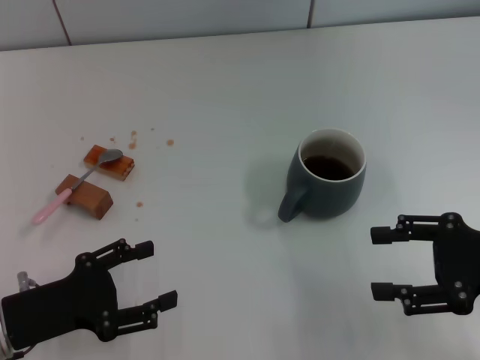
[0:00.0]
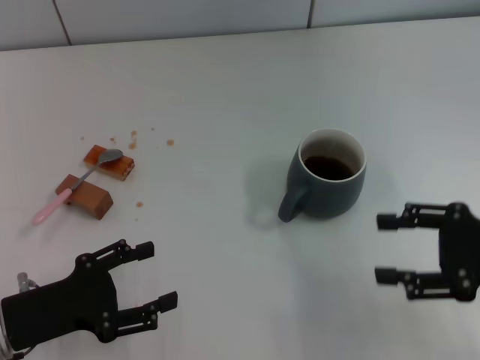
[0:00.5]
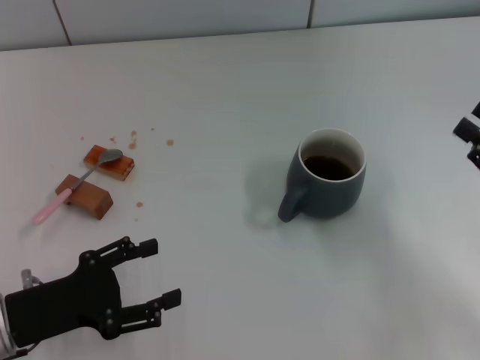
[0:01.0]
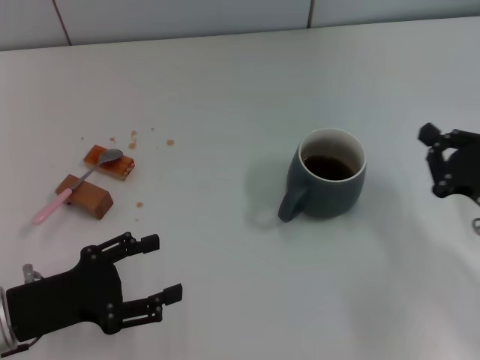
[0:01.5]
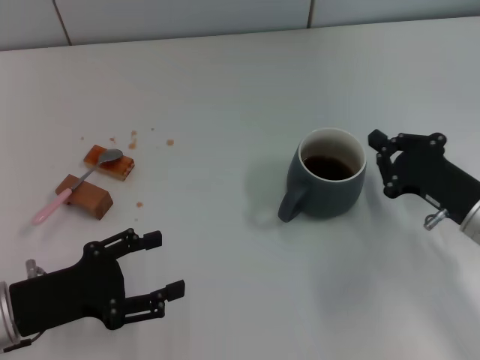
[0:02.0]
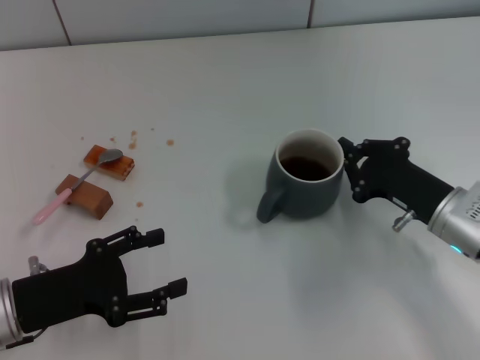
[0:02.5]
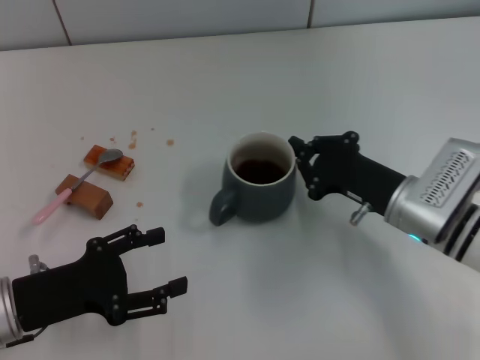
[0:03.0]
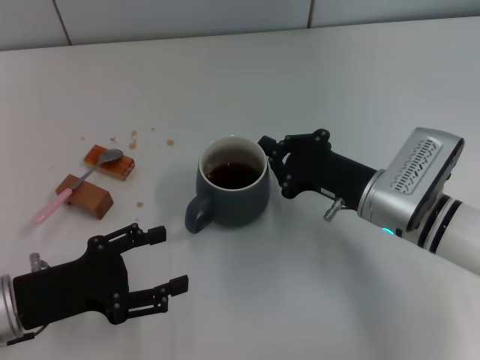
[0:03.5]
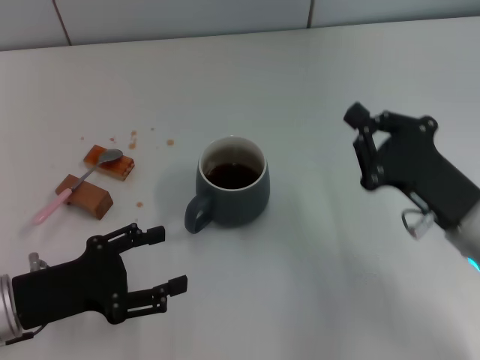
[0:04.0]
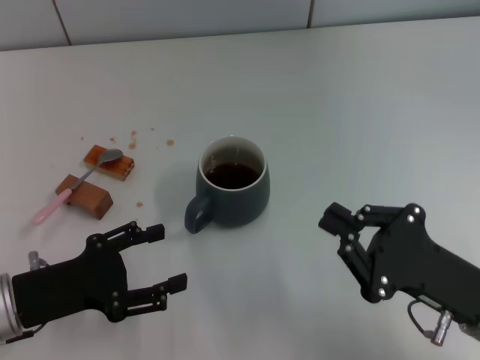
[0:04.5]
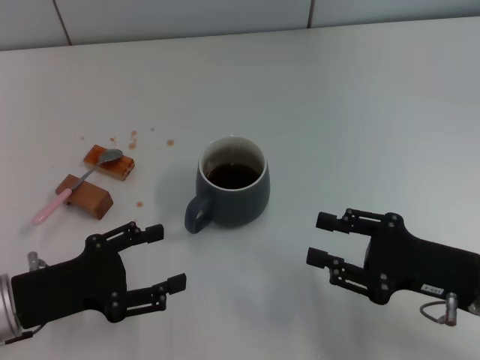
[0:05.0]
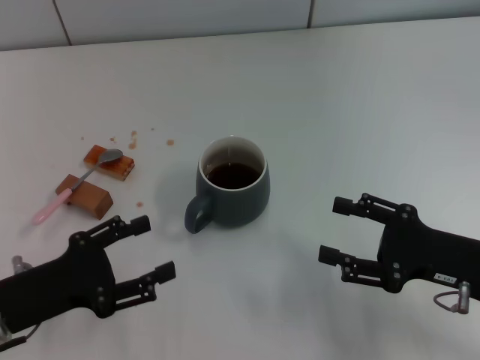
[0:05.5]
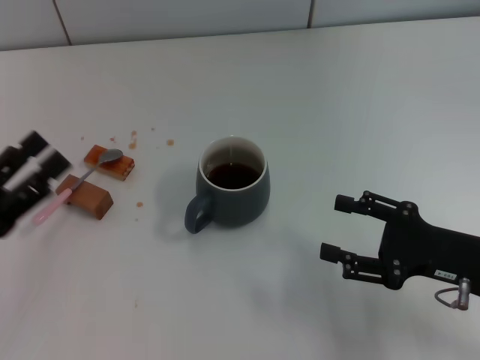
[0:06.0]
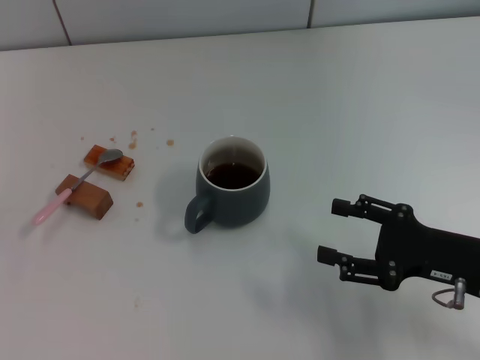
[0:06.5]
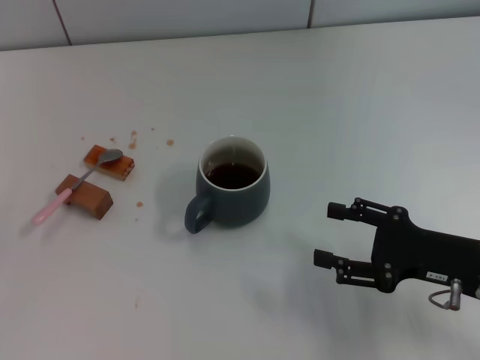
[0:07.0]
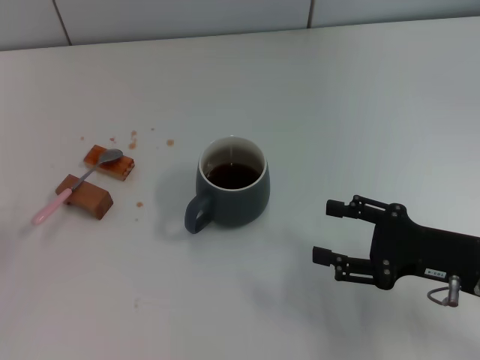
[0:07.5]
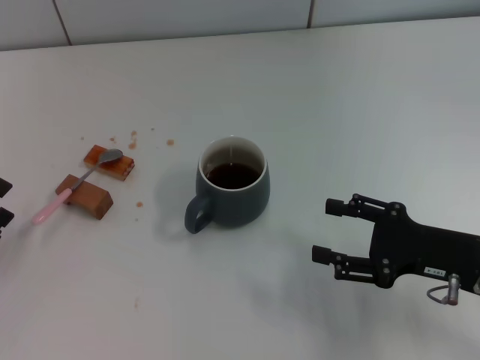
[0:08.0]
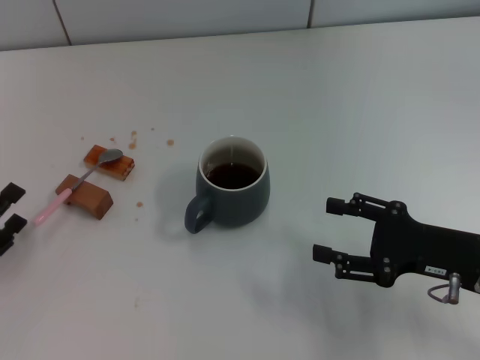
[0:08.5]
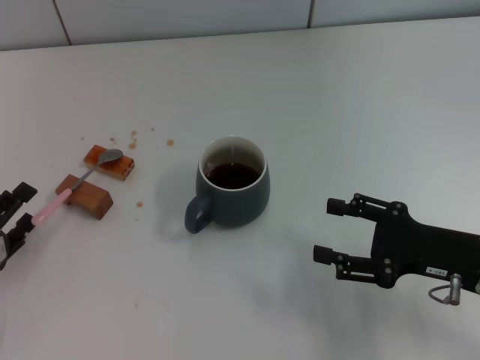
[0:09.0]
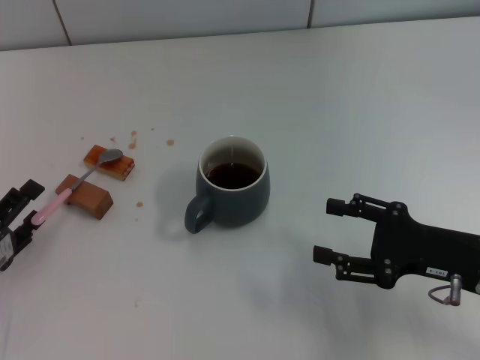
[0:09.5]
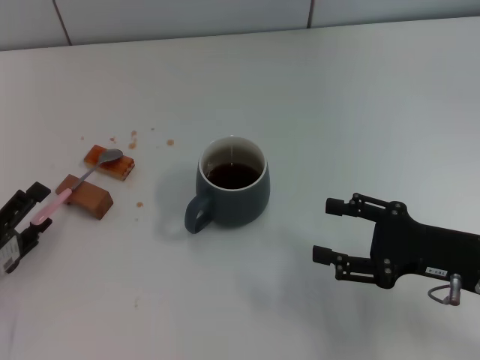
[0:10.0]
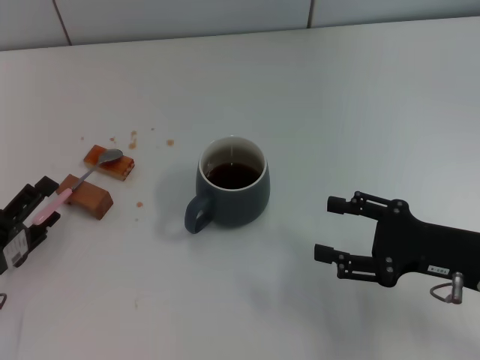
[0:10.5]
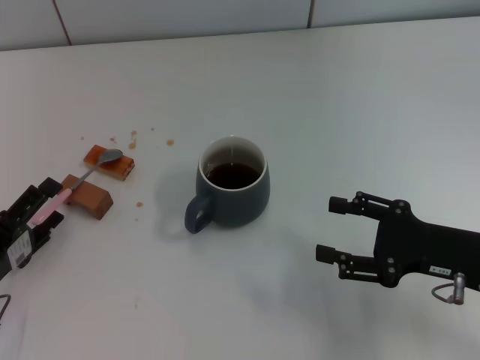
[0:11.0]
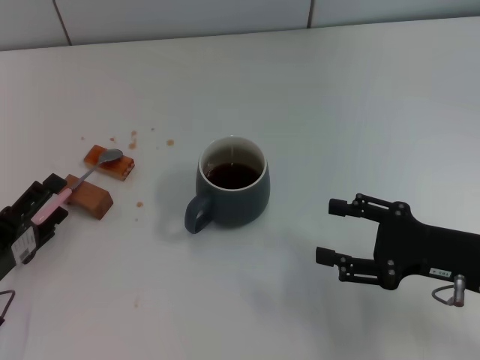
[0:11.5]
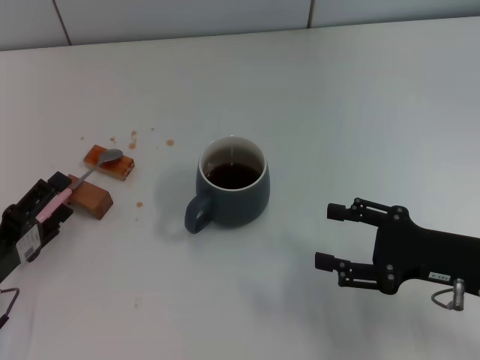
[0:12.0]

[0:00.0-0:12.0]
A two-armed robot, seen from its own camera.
Task of the whole recording: Move the grey cup to the center, lift the pink spoon, stir it three times in the cup, and put the spoon into the cup.
Step, 0:00.0 to 0:03.5: Move the cup with coffee to the center of view with the right gripper.
0:00.0 to 0:02.0: The right gripper heads downward, covering some 10 cm, and closes up.
0:04.0 to 0:06.0: The left gripper moves roughly 5 cm, while the right gripper opens.
0:06.0 to 0:08.0: The left gripper is displaced downward by some 5 cm.
0:08.0 to 0:12.0: There are only small adjustments of the grippers.

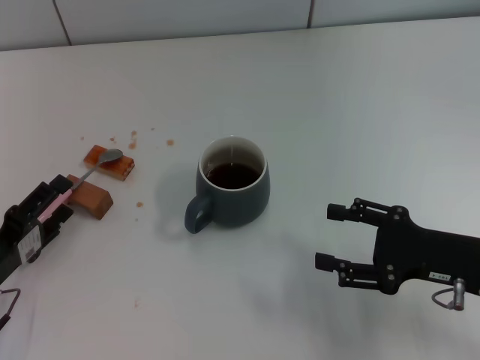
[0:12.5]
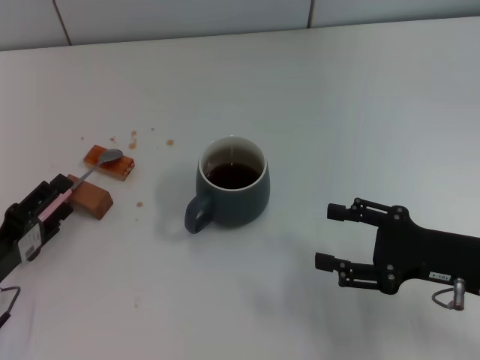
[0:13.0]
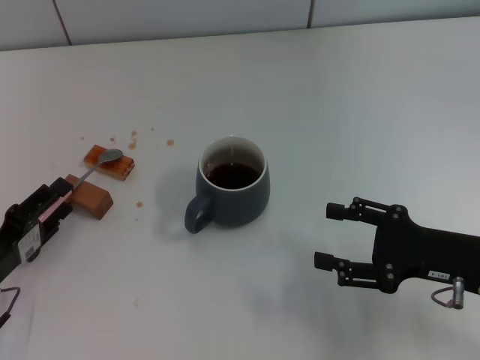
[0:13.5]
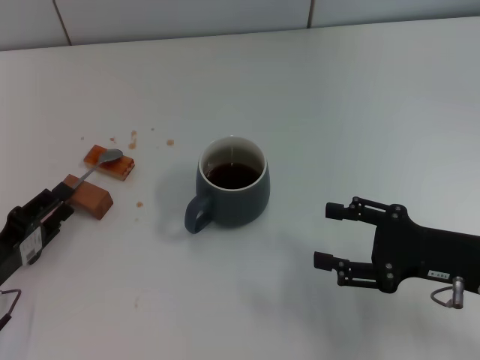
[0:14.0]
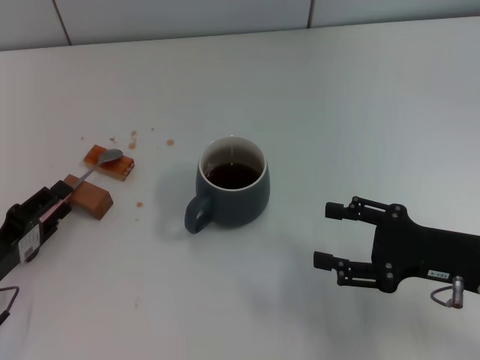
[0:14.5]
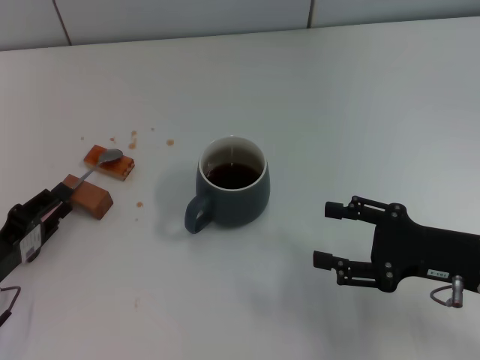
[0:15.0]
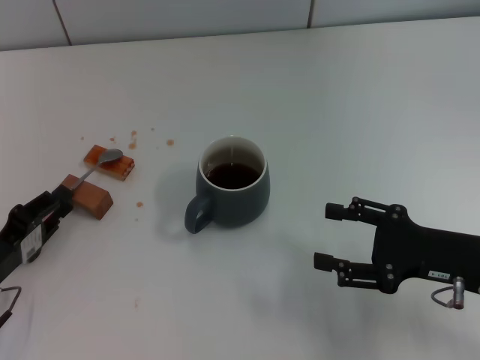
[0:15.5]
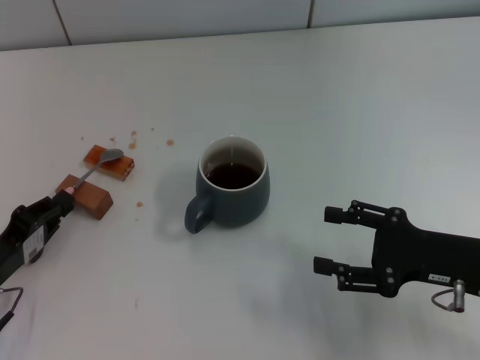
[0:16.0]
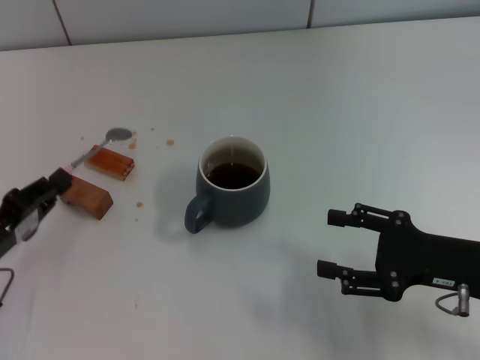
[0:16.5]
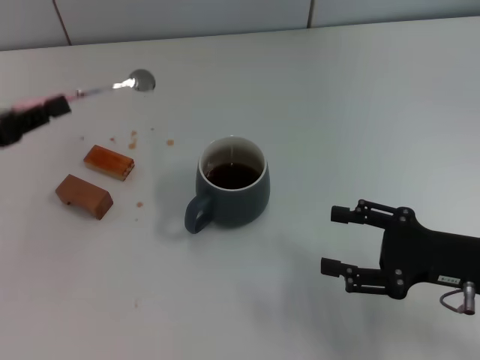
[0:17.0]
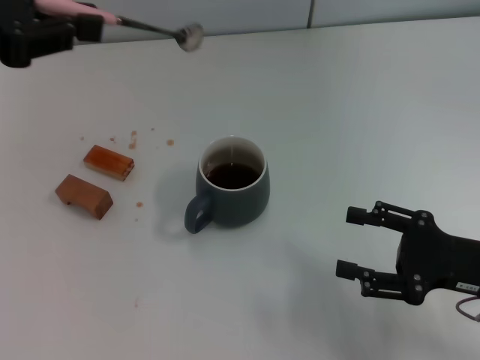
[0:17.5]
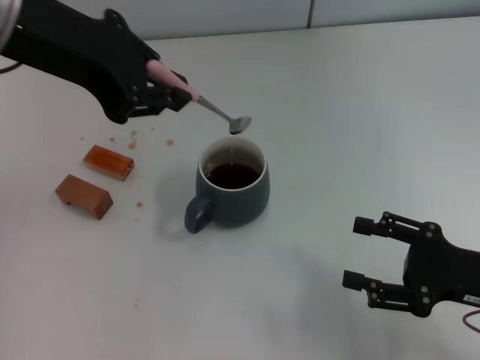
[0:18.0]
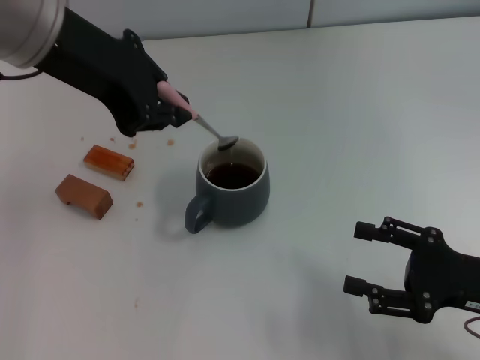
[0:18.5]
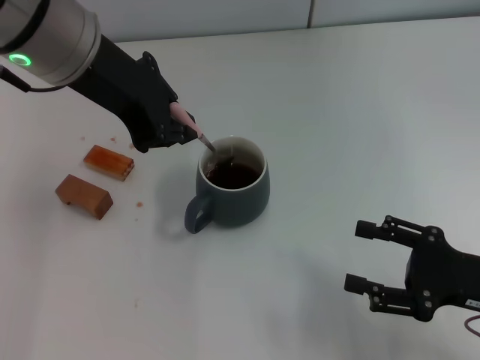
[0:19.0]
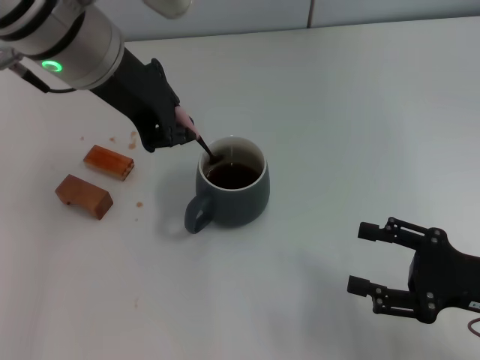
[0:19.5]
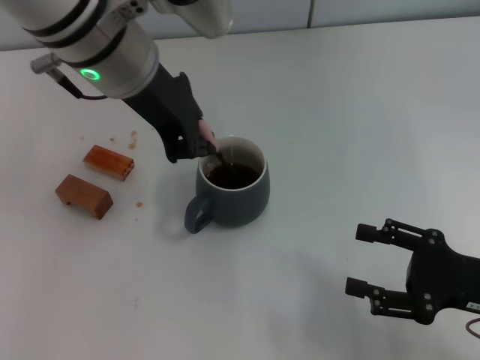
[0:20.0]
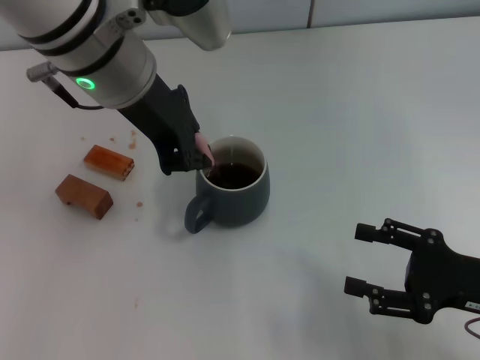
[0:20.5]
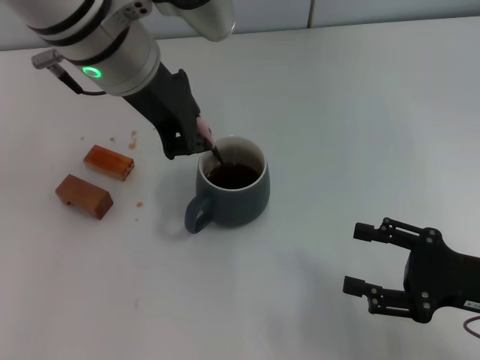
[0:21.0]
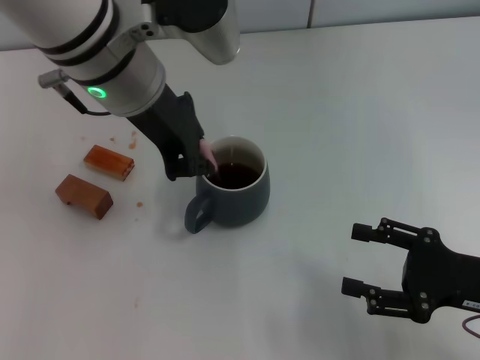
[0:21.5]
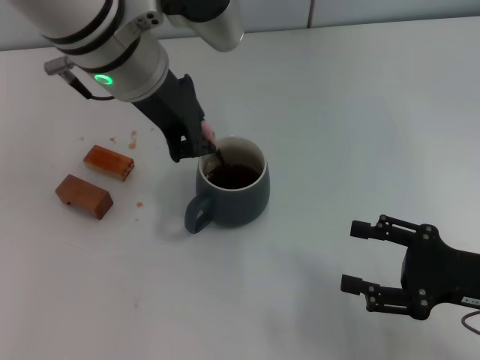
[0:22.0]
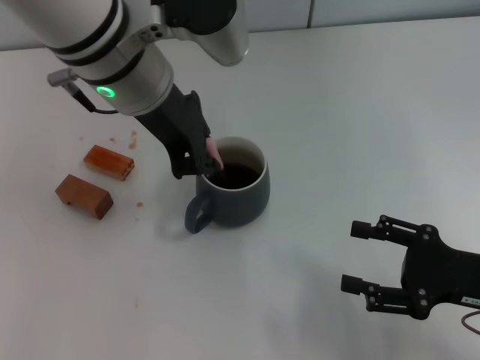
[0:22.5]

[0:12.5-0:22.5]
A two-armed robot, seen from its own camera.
Task of the whole recording: Move the grey cup to the center, lift the pink spoon, stir it three times in the cup, and put the spoon into the cup.
Step, 0:12.5 to 0:16.0: Pick up the spoon with the left gripper.
0:12.5 to 0:14.5: The left gripper closes.
0:14.5 to 0:16.5: The left gripper closes.
0:16.5 to 0:18.5: The left gripper shifts approximately 35 cm upward, to the right and forward.
0:18.5 to 0:20.5: The left gripper goes about 5 cm to the right.
0:20.5 to 0:22.5: There are only small adjustments of the grippers.

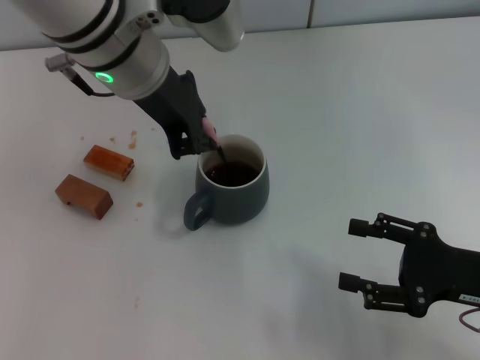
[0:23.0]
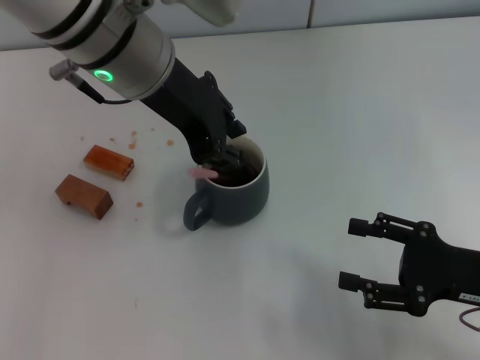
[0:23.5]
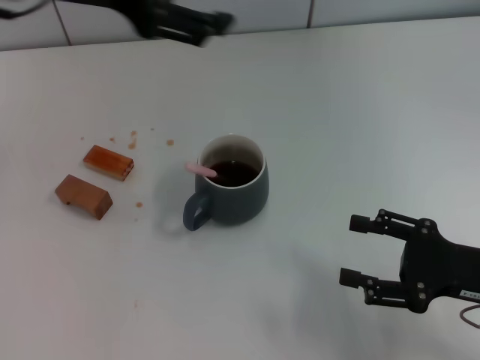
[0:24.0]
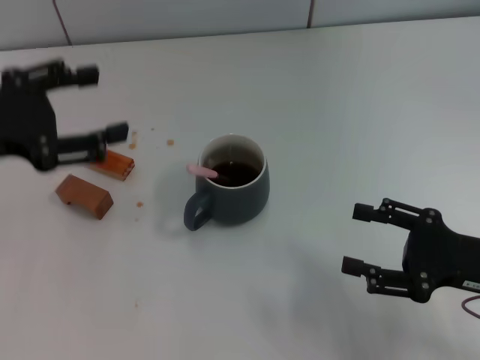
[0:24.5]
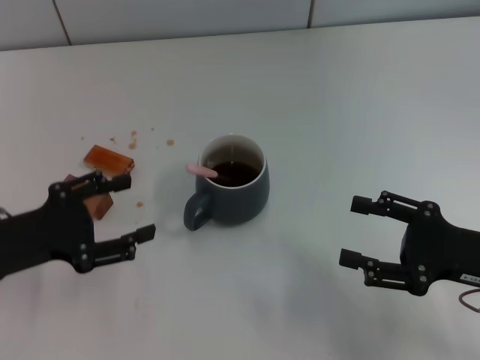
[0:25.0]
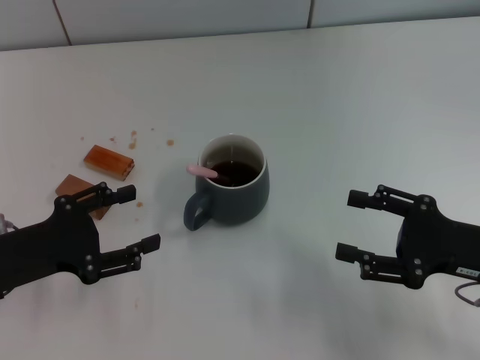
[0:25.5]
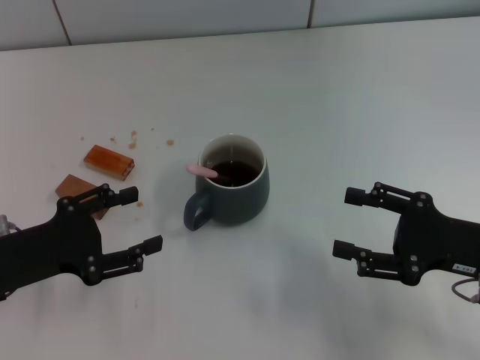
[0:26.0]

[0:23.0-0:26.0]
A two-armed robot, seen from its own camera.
Task of the whole recording: Move the grey cup to the center, lift the pink spoon, stir it three times in the cup, and put the spoon into the cup.
0:23.0 to 0:24.5: The left gripper is displaced to the left and backward by roughly 20 cm, and opens its fingers.
0:24.5 to 0:26.0: The left gripper shifts some 10 cm downward.
